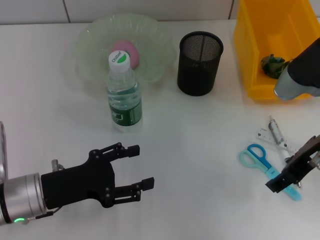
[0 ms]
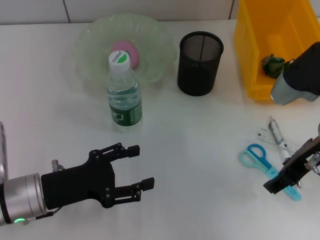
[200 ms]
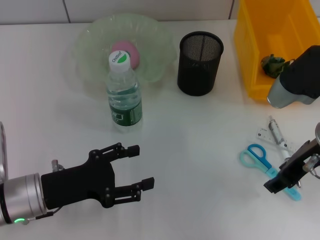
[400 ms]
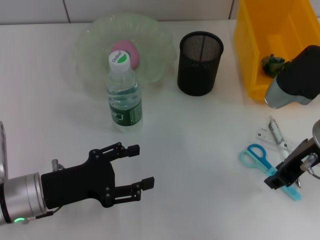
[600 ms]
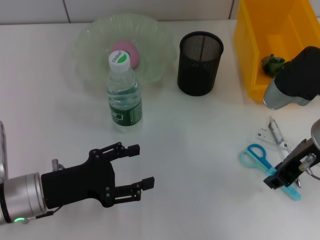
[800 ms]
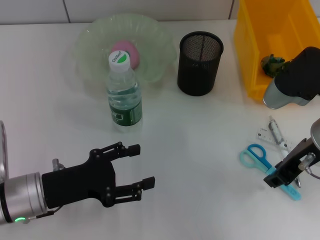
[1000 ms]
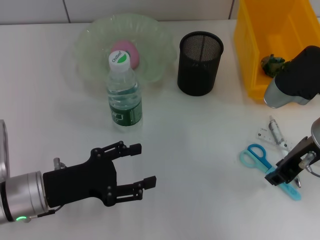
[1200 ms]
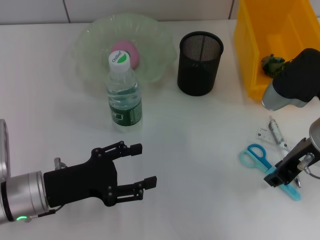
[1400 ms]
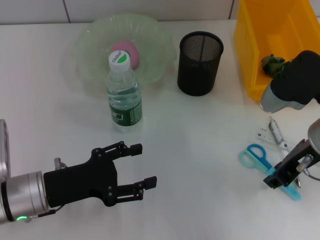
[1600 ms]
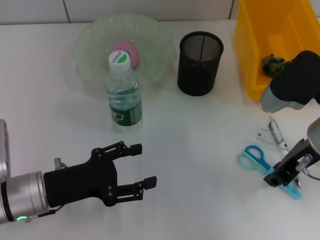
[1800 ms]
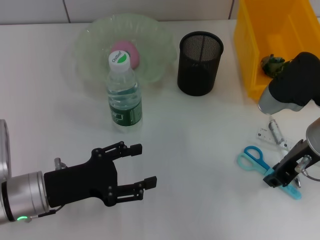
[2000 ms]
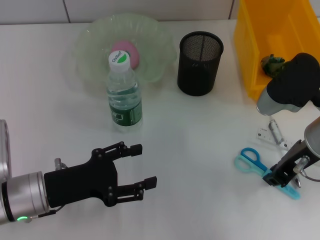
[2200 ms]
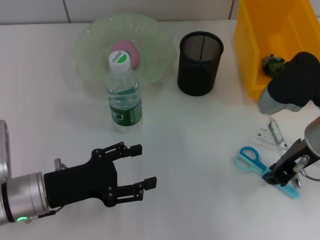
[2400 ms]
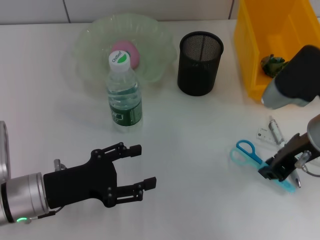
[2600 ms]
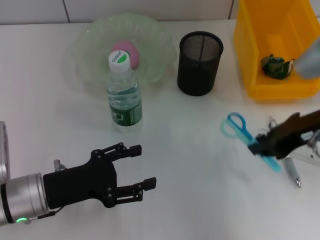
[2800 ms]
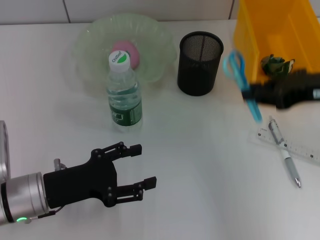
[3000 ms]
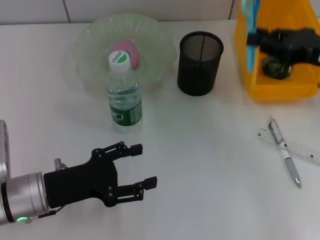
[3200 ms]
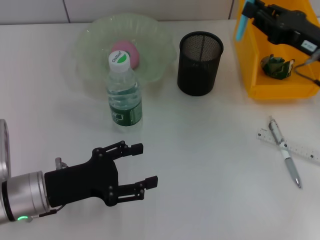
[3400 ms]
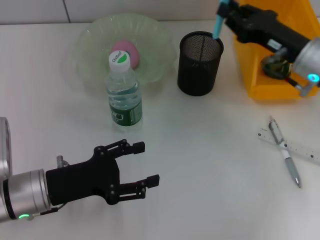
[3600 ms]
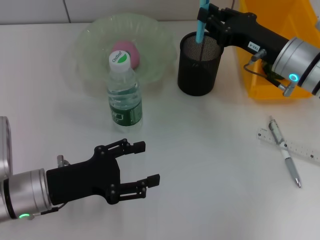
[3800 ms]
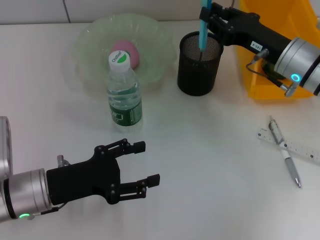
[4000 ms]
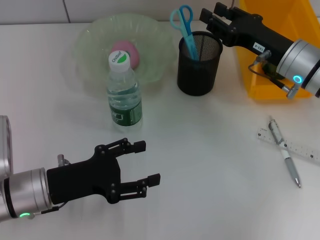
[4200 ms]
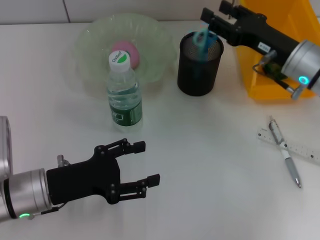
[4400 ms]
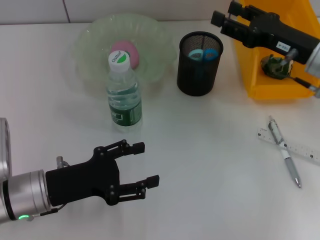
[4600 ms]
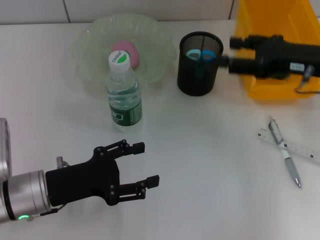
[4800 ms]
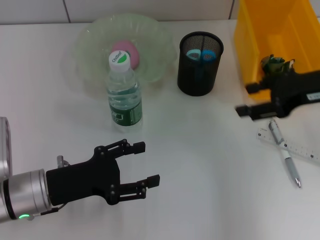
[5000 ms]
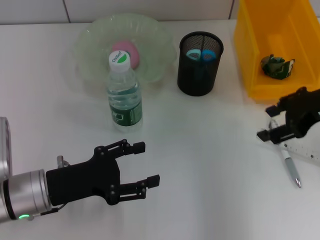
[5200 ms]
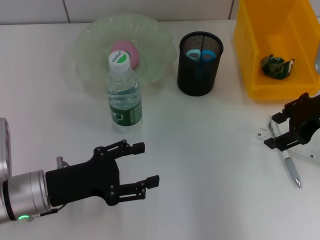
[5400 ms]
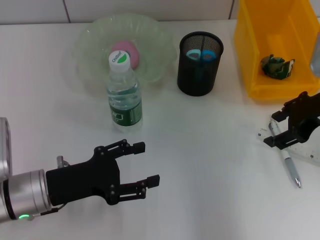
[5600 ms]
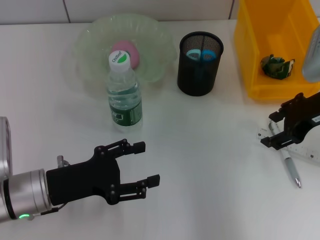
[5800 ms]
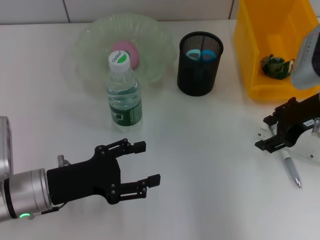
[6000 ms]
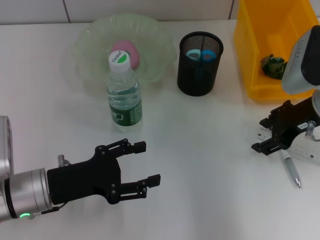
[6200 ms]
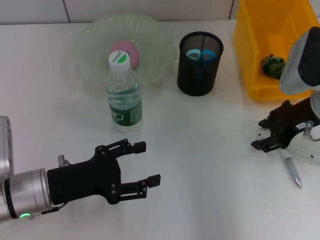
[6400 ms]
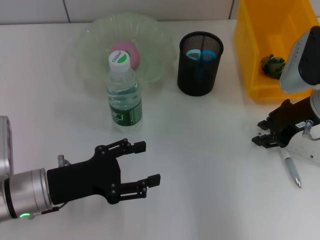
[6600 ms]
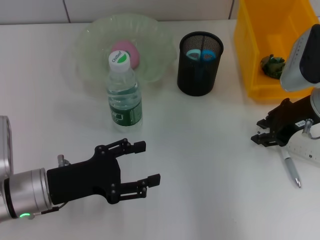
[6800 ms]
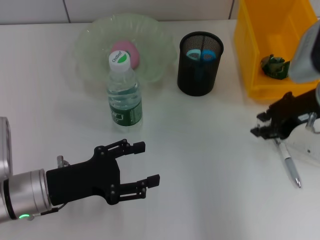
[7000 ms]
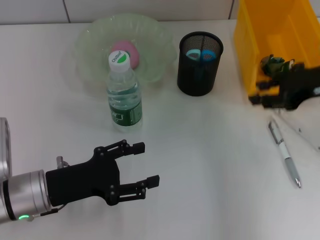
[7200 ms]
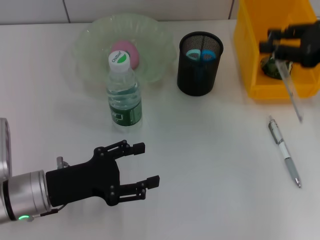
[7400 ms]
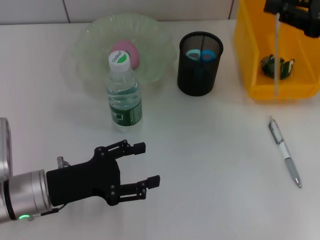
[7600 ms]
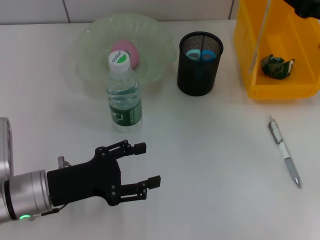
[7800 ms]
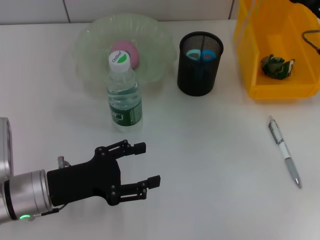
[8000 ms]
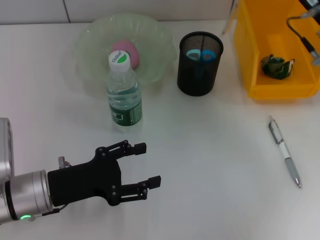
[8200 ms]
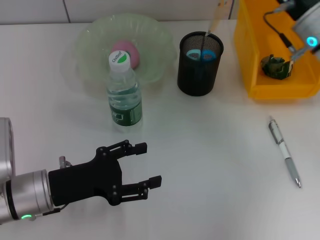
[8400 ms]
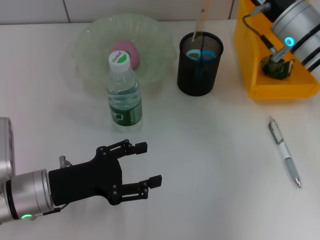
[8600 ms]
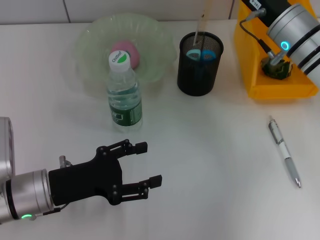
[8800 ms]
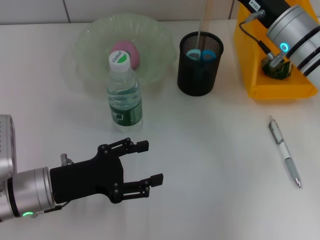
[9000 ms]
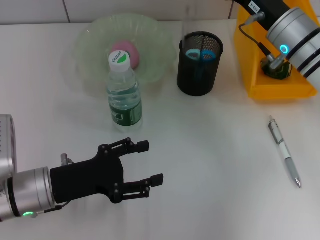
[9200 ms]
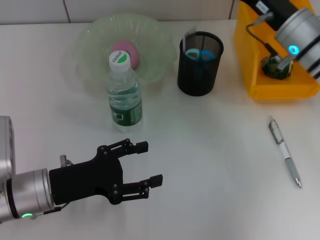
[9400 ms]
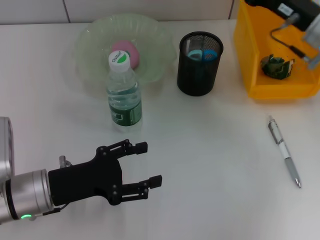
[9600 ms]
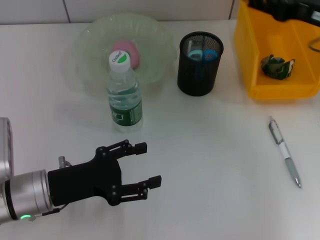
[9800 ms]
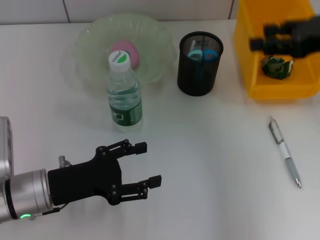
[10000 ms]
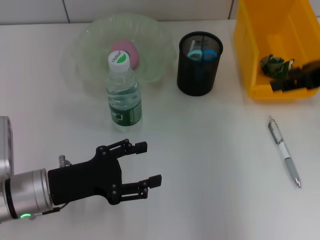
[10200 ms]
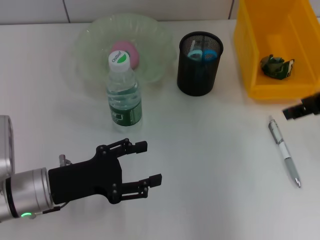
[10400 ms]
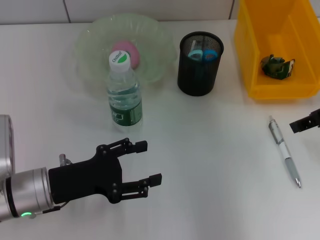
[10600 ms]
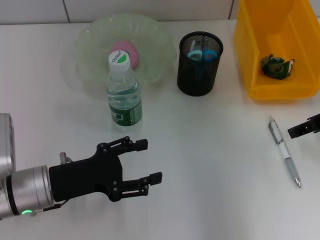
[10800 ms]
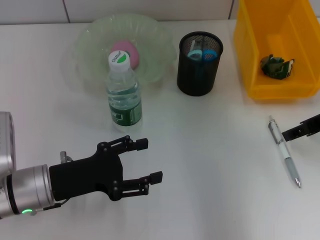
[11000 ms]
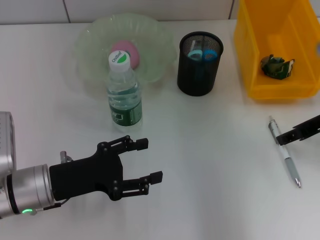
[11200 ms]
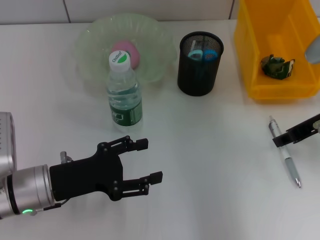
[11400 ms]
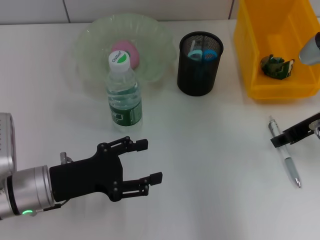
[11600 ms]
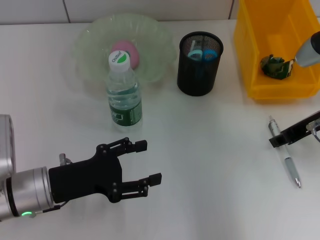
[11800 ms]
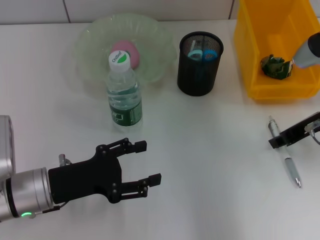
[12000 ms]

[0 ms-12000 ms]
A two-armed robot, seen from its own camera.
Step, 0 ms to 2200 ms: Grab the blue scissors with the right hand.
Step, 2400 ms to 4400 ms: Place the blue scissors into the pen holder with the right hand.
Step, 4600 ms to 6800 ms: Grab the ruler with the right hand.
Step, 7000 ms to 9400 ms: Place the ruler into the pen holder with the right hand.
0 ms to 1600 ms: The right gripper closes its fingers.
1600 ms to 3000 ms: The right gripper heads to the right and upward, covering about 5 cm.
3000 ms to 4400 ms: The right gripper moves downward and forward, some 10 cm, and opens its fingers.
6000 ms to 7600 ms: The right gripper is displaced to the right by approximately 5 cm, and closes.
7600 ms to 9000 ms: The right gripper shifts about 15 cm to the left, downward and forward.
9000 ms to 10400 ms: The right gripper moves to the right, upward and backward, some 15 cm.
10400 ms to 12000 ms: The right gripper goes roughly 10 cm downward.

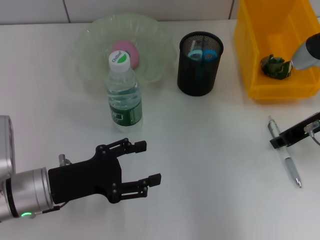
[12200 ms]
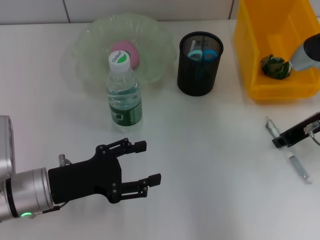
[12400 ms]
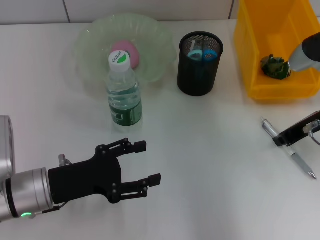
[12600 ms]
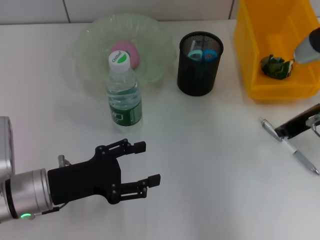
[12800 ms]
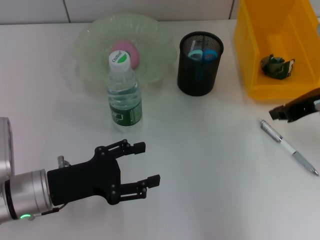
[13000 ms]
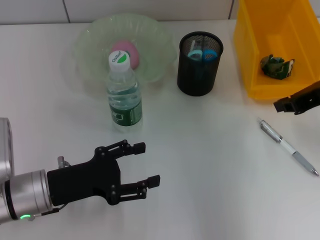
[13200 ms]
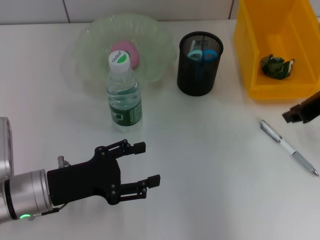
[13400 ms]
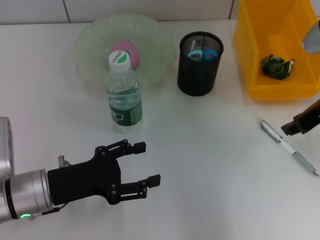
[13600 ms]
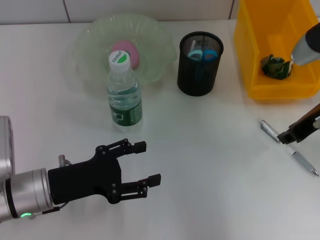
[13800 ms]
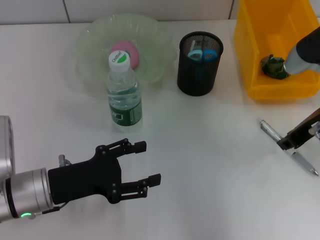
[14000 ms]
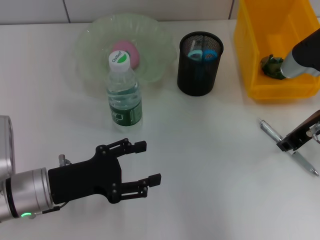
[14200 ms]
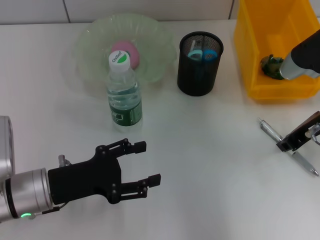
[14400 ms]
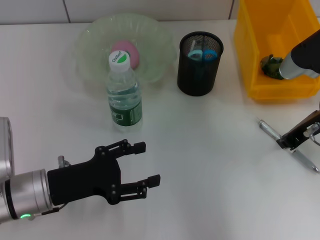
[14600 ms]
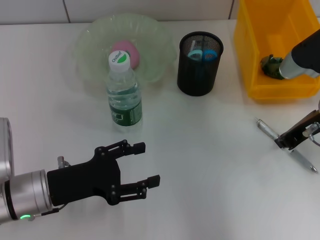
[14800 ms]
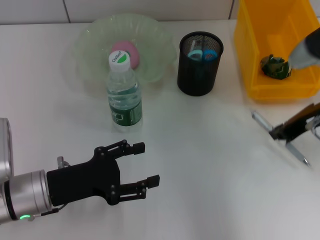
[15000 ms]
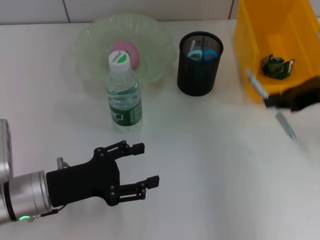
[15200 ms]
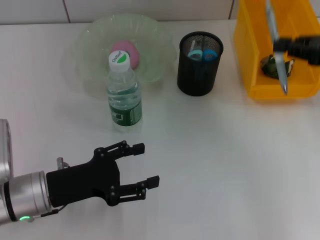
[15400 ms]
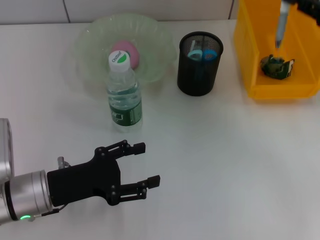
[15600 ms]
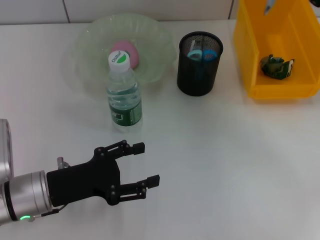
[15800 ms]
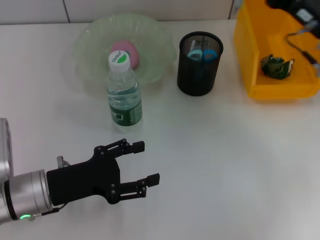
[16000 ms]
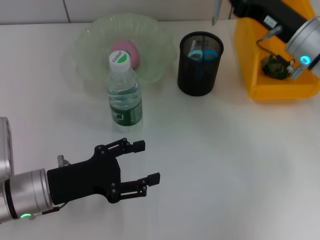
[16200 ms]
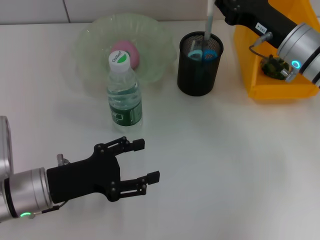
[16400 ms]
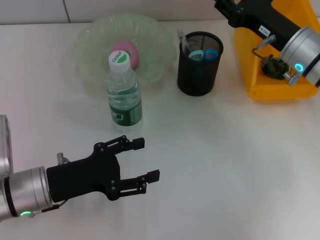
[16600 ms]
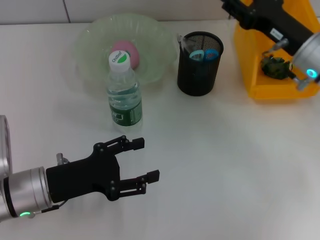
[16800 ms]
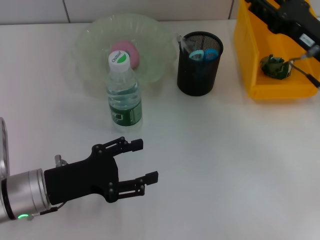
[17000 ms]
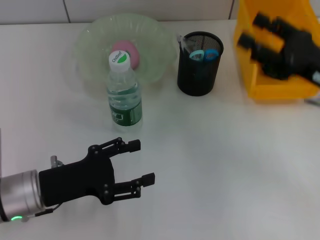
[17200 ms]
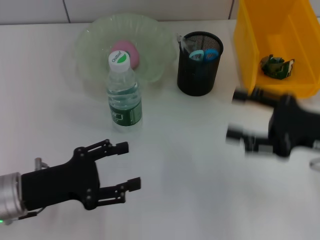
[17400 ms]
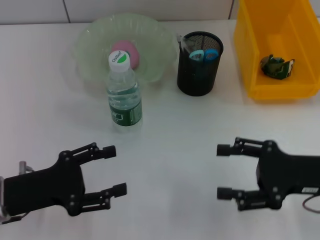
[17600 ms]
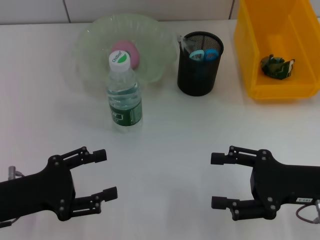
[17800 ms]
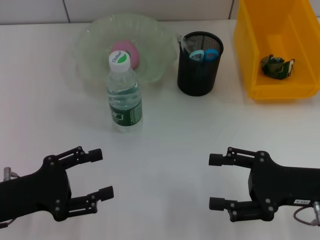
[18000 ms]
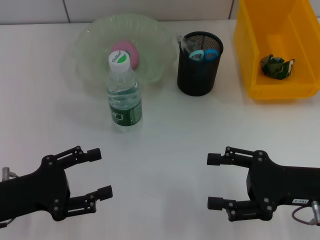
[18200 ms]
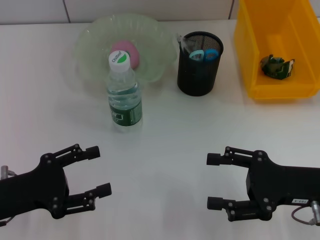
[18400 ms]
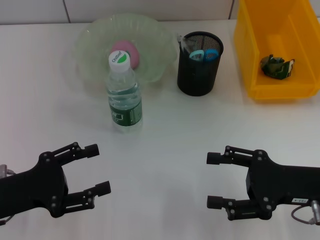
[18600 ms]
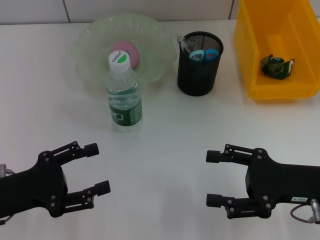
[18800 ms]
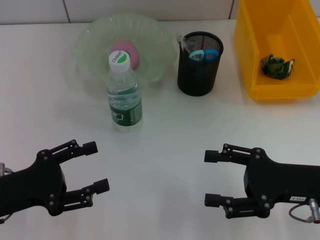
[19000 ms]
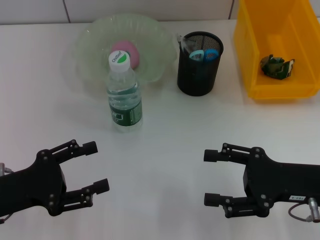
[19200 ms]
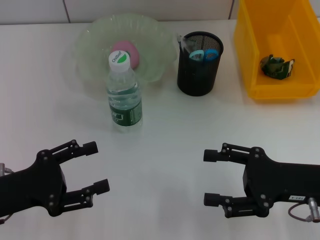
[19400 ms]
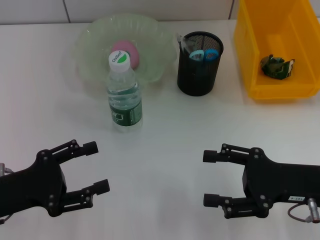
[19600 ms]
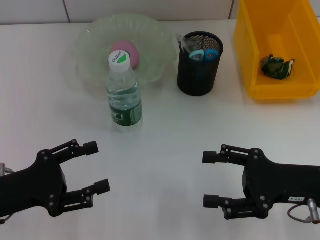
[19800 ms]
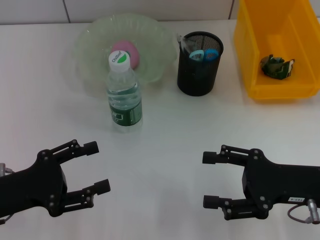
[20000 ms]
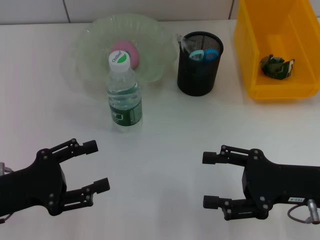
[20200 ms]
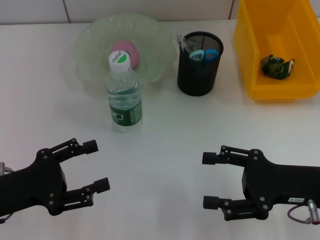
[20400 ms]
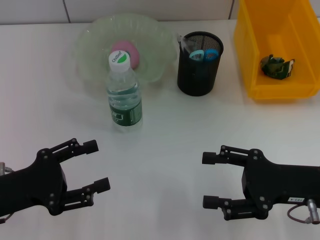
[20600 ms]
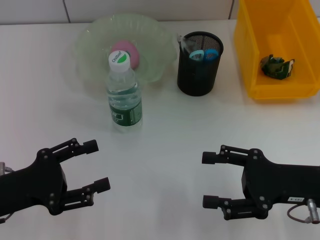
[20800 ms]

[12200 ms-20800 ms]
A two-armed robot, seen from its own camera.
Step, 12200 ms to 14600 ms: Grab the gray spring-action pen with the right hand.
Step, 14800 ms to 17000 ms: Place the gray spring-action pen into the pen holder with the right hand.
12200 ms to 15000 ms: The grippers stay close to where they were, moving slightly.
15000 ms to 16600 ms: The right gripper travels forward by approximately 5 cm, and reaches approximately 5 cm to the right, then returns.
16600 ms to 18000 ms: The right gripper travels backward by roughly 15 cm, and opens up, while the left gripper shifts some 5 cm to the left.
18000 ms to 20800 ms: Both grippers stay put.

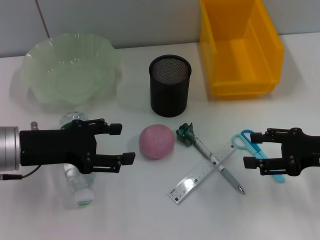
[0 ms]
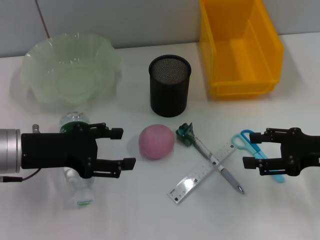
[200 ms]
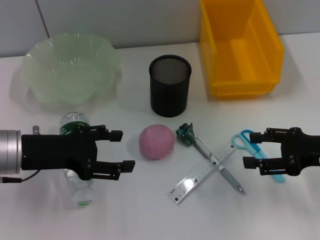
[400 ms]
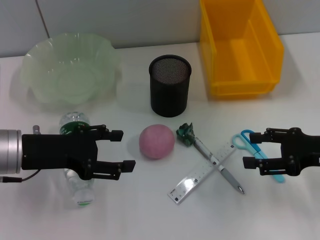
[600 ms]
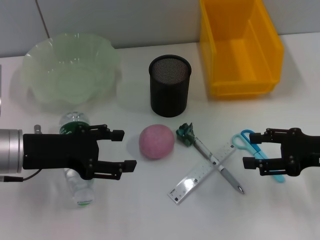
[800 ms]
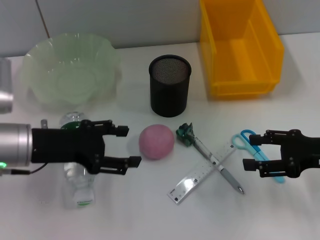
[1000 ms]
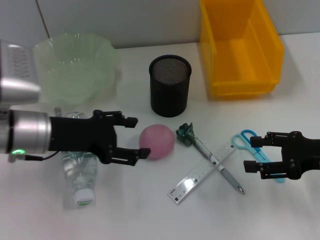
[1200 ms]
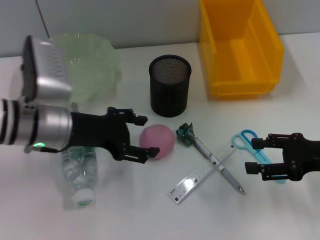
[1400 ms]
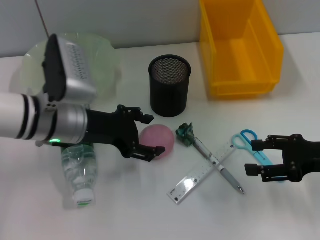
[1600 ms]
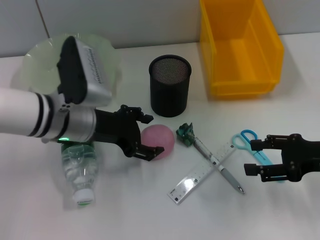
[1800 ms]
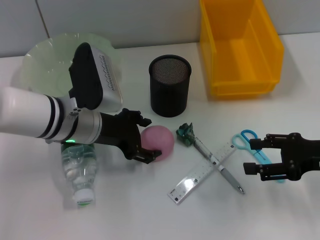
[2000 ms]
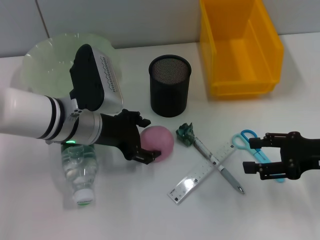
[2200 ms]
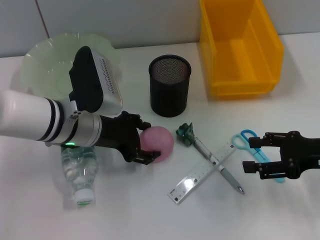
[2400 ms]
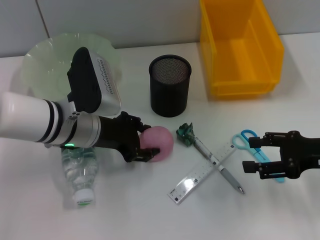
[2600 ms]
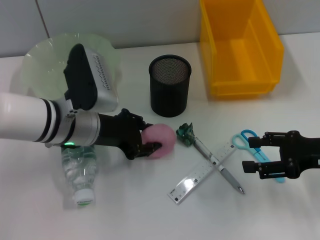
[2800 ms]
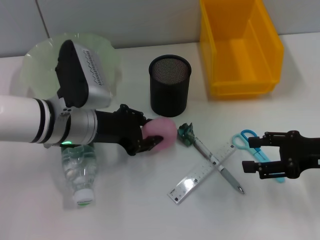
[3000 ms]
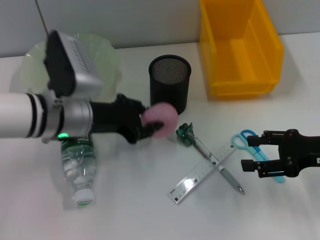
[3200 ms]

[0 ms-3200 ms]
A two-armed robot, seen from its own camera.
Step, 0 ms to 2600 ms: Grab the peach with the left hand.
0 ms to 1600 ms: The left gripper heads to the right, covering approximately 10 cm.
1600 ms to 3200 ms: The left gripper closes its fingers.
